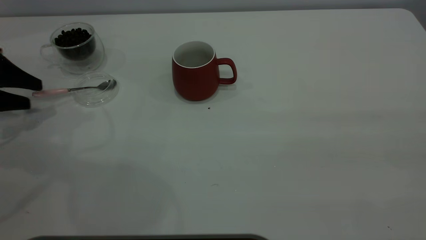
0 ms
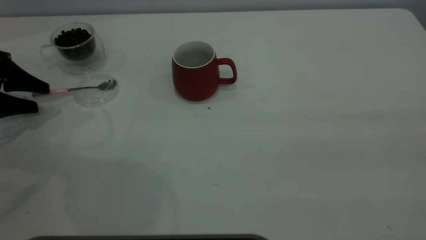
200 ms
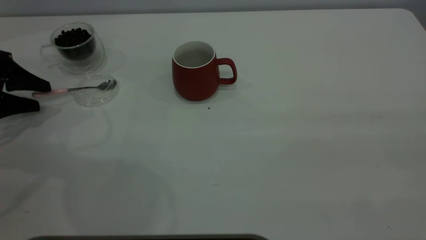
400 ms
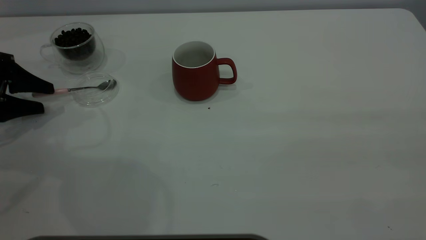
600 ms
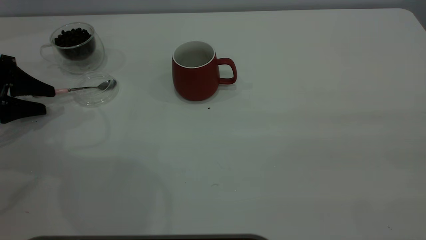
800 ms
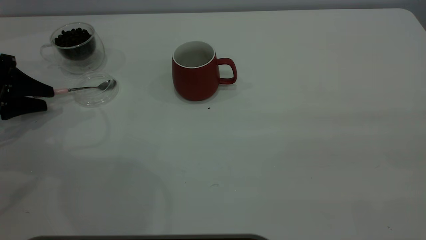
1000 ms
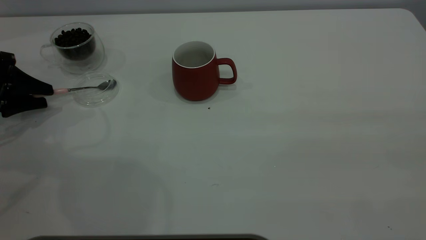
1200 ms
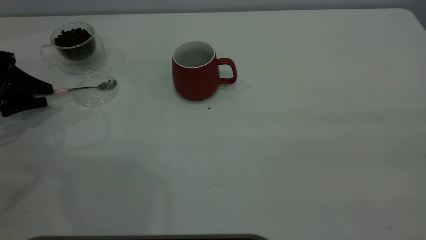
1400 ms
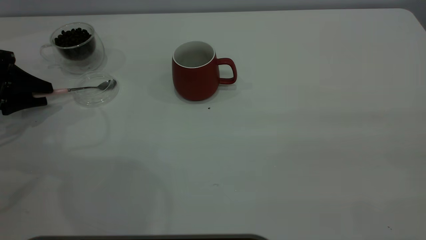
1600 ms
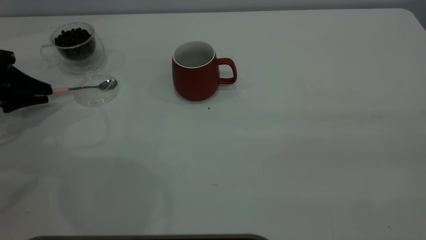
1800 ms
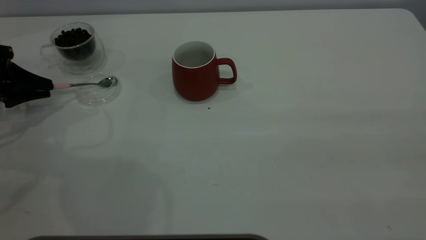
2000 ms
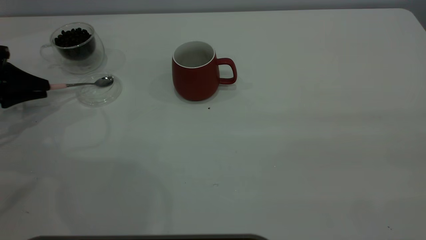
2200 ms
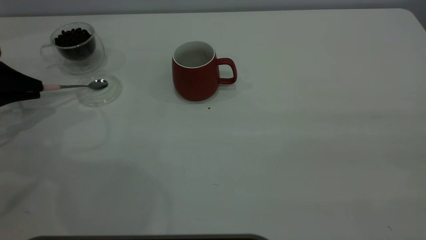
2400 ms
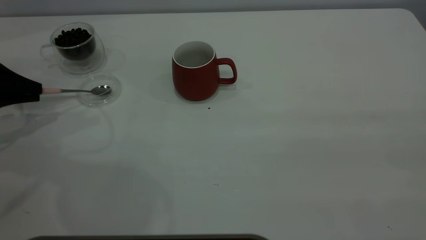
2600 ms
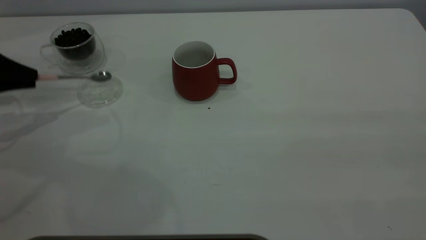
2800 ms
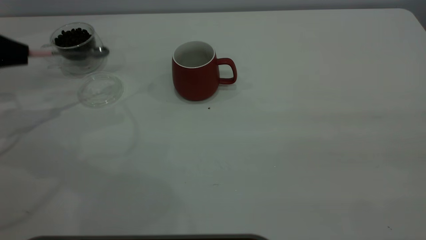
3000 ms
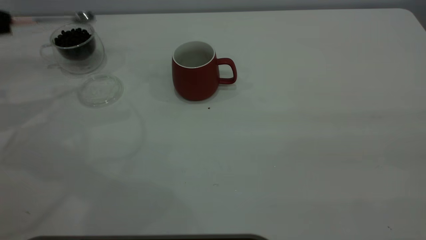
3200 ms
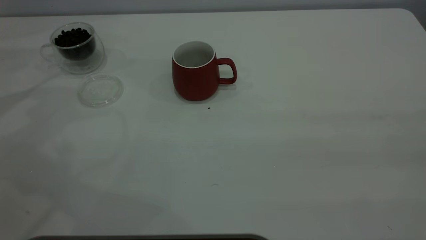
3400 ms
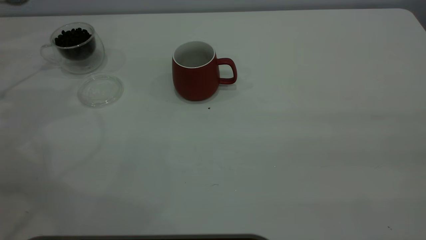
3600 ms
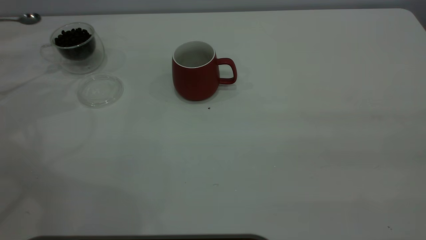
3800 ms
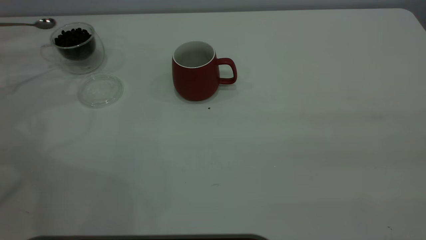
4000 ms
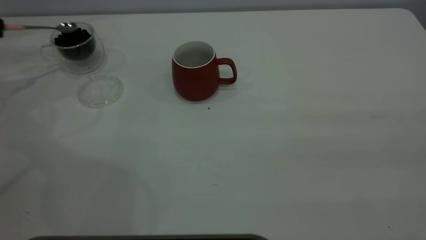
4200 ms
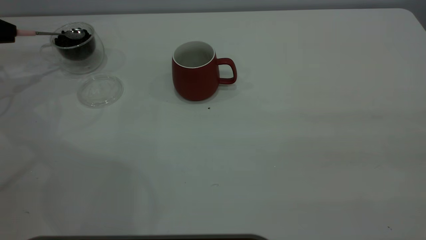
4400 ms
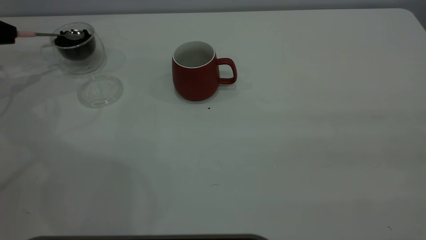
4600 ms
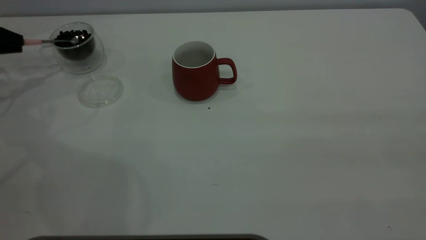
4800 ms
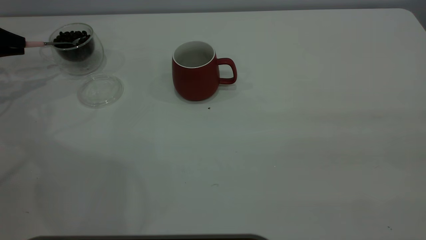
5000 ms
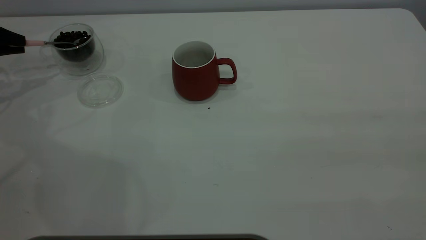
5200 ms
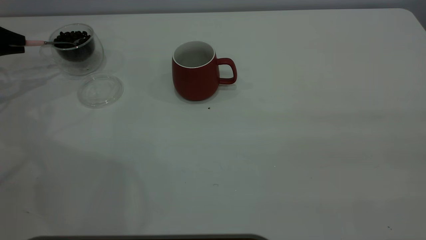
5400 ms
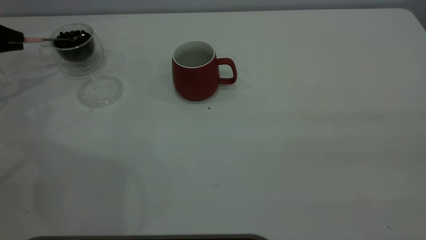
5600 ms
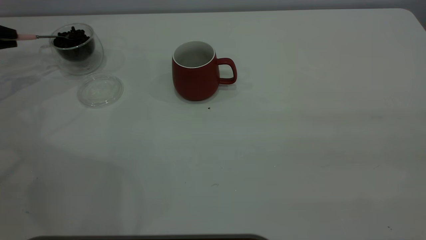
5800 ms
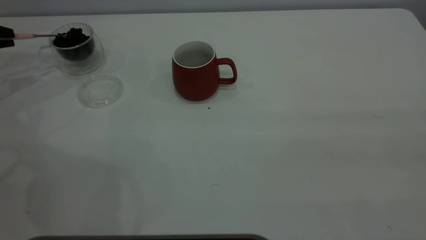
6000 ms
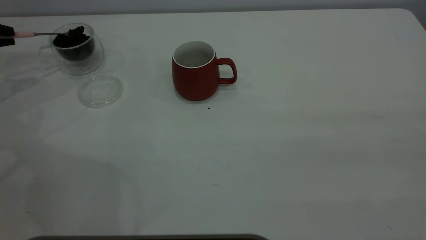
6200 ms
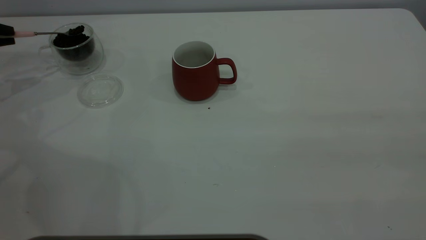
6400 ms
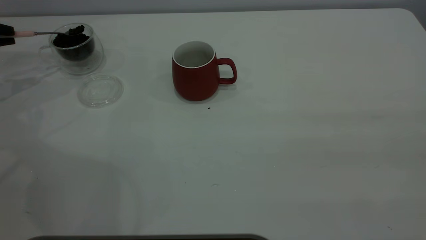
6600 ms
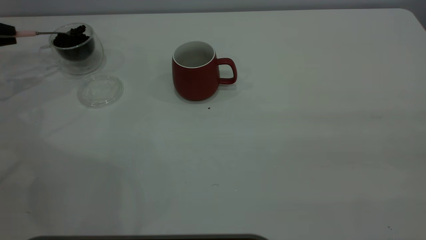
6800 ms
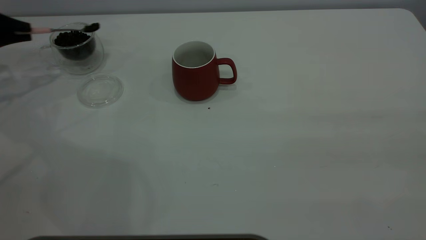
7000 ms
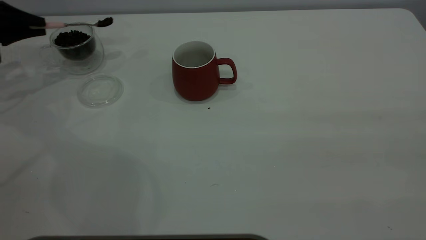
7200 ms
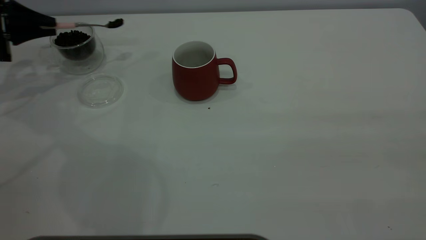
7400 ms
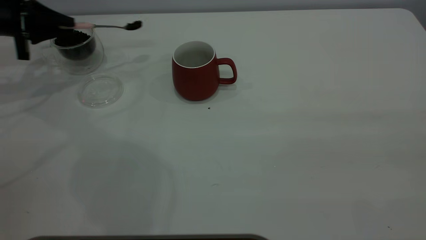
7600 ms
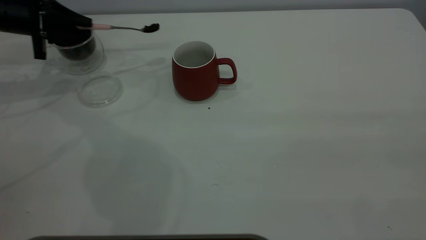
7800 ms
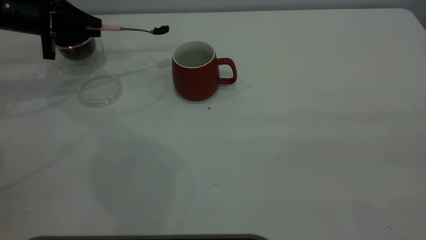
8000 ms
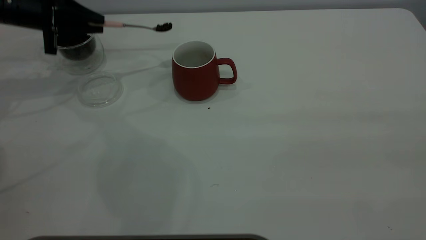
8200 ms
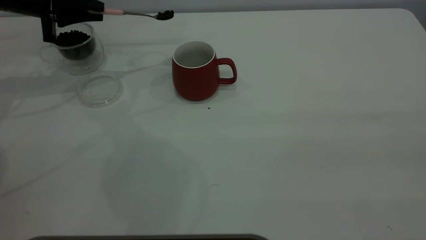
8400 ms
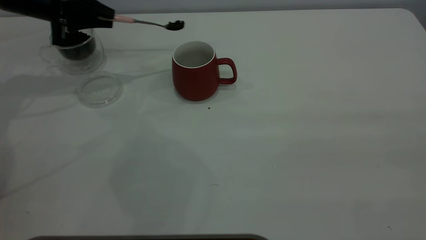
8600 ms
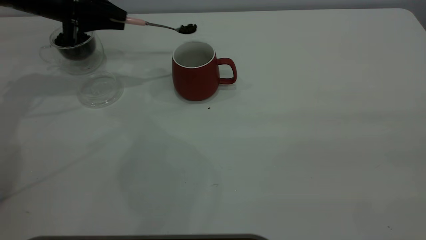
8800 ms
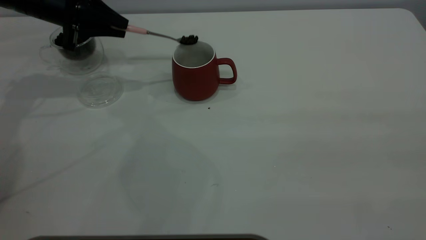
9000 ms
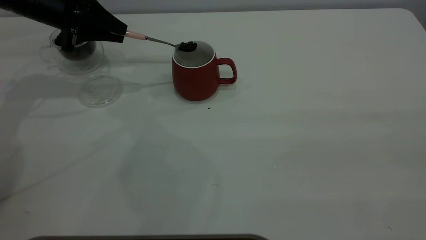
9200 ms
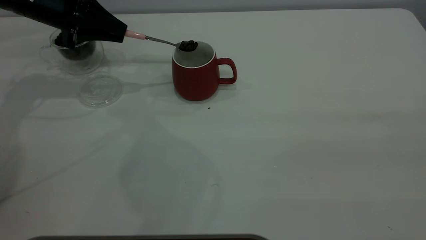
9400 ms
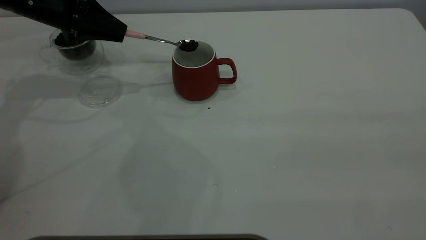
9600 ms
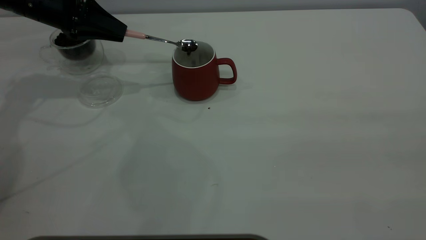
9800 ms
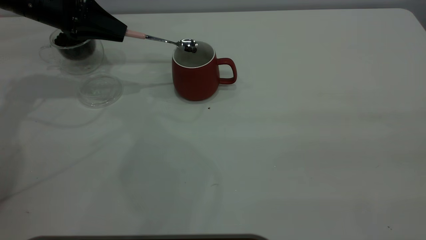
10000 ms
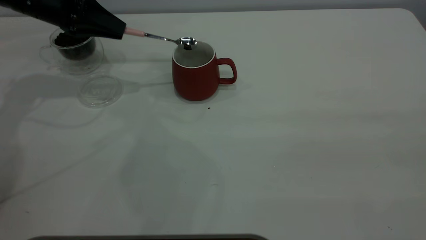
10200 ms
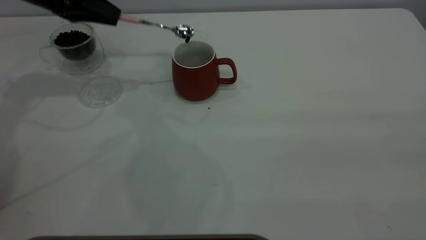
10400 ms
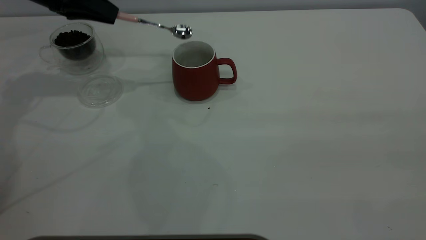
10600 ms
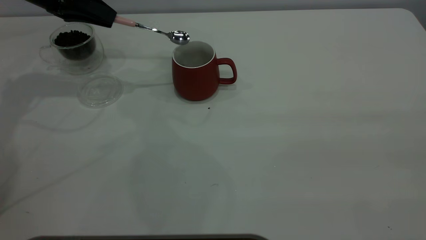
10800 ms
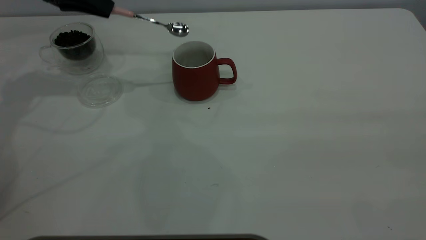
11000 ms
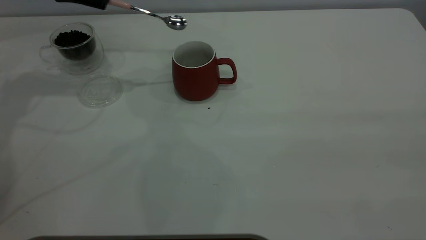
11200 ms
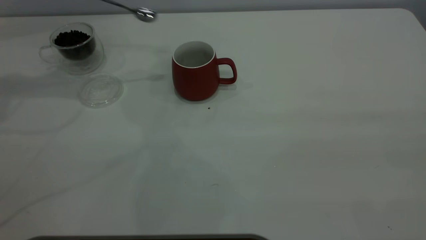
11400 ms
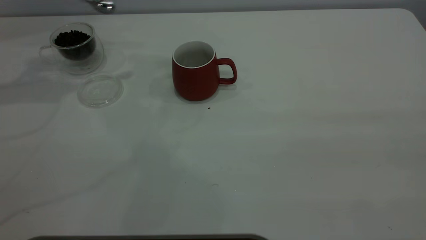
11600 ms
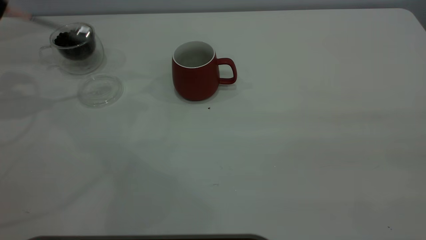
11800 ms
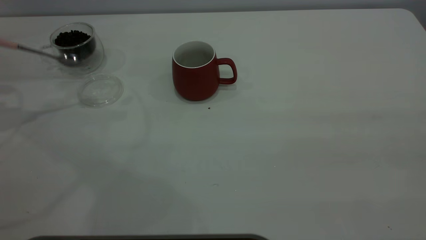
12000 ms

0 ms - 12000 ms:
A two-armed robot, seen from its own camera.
Task of the whole recording: the right gripper place the red cup in the center of the table, the left gripper take the pink spoon from the cup lid and scoop out the coffee beans from the coffee cup and put them into the red cup, the left gripper put the spoon back into the cup lid.
Step, 0 ms - 3000 ms: Pick up the spoon.
Step, 3200 ms - 11200 ms: Scoop a spoonful of beans into the cup.
0 ms - 1600 ms: The left gripper closes its fingers.
1600 ms - 3000 ms: The left gripper moves upward, some 10 cm, and closes its fingers.
3000 ms - 4400 ms: The left gripper goes approximately 10 cm forward and to the left.
6000 ms - 7600 ms: The left gripper heads to the right, covering roughly 10 cm.
7600 ms - 9000 ms: The left gripper moves to the right, approximately 10 cm.
10400 ms - 12000 ms: The left gripper is displaced to the left and backward by about 20 cm.

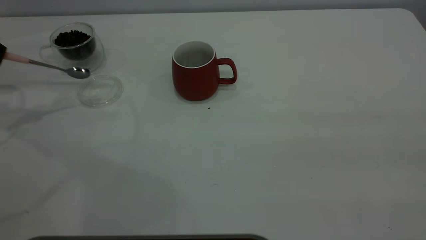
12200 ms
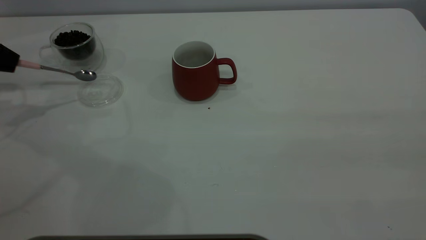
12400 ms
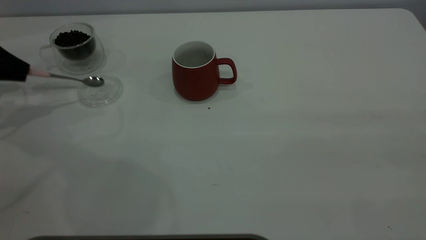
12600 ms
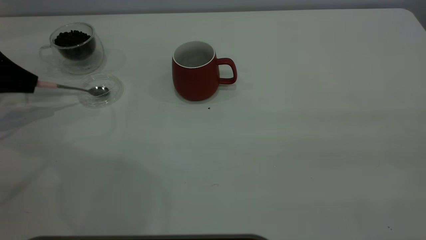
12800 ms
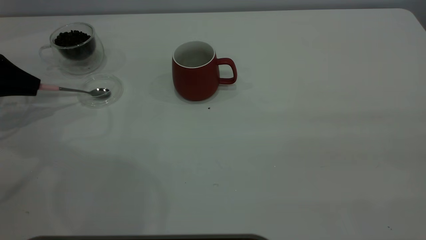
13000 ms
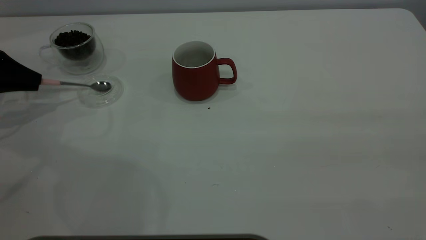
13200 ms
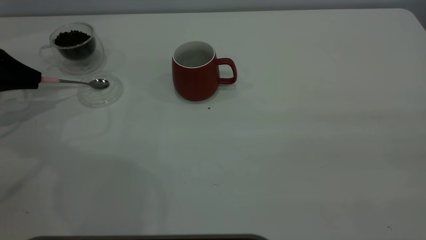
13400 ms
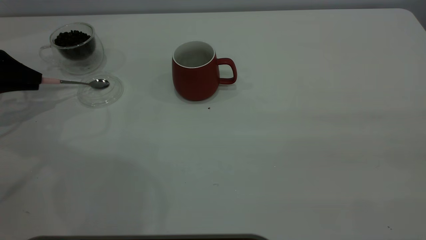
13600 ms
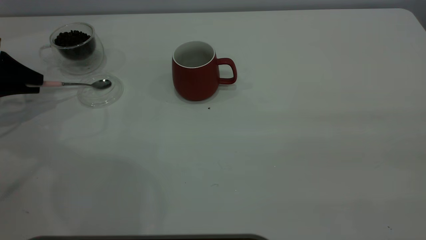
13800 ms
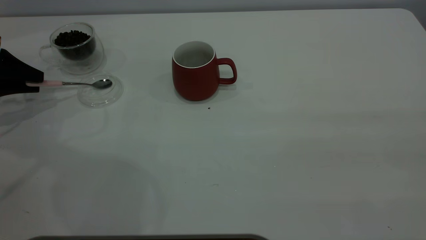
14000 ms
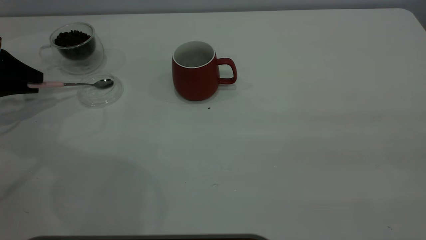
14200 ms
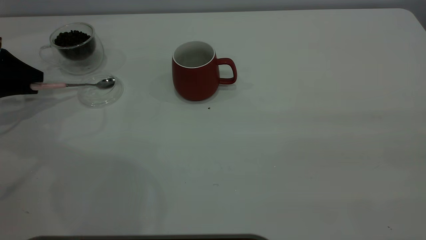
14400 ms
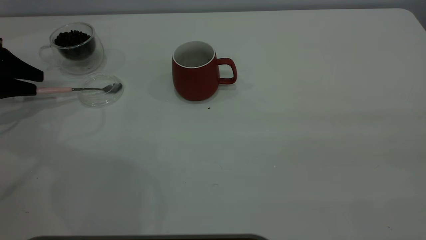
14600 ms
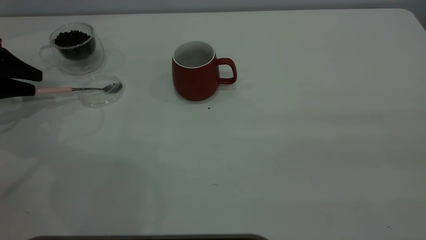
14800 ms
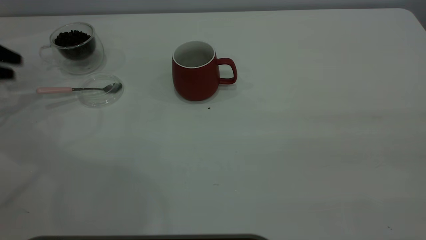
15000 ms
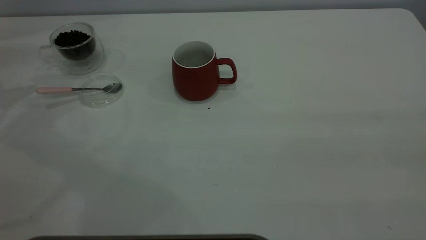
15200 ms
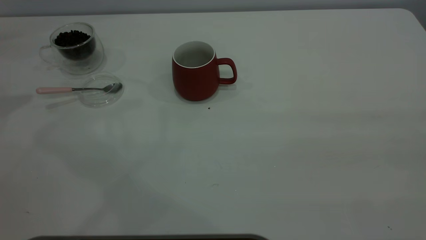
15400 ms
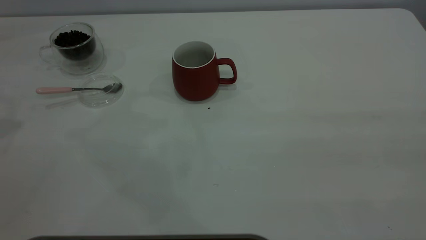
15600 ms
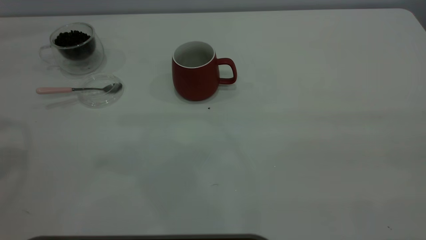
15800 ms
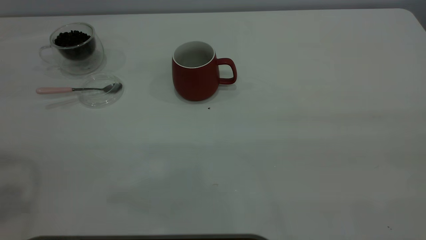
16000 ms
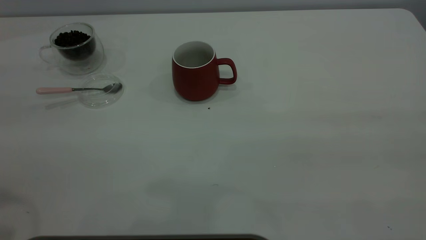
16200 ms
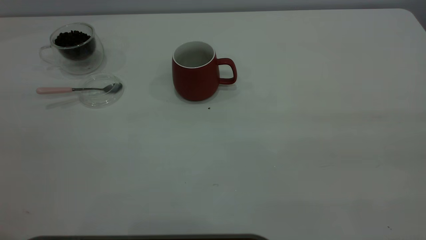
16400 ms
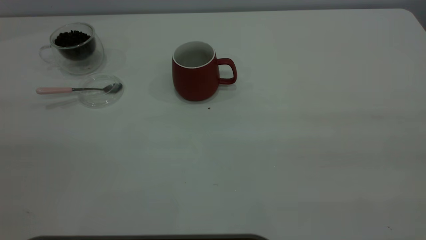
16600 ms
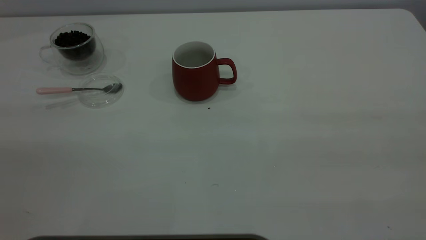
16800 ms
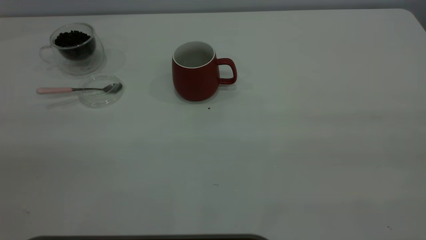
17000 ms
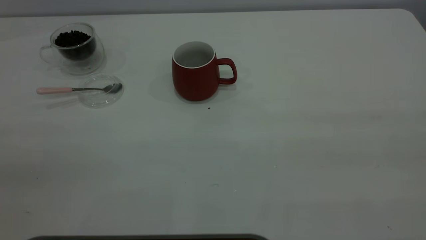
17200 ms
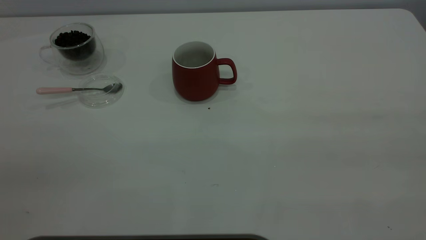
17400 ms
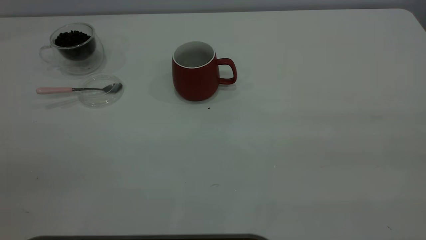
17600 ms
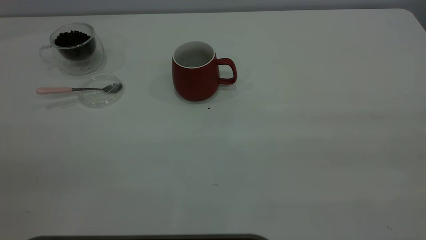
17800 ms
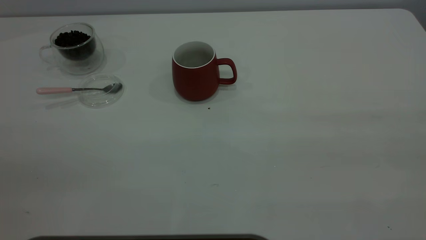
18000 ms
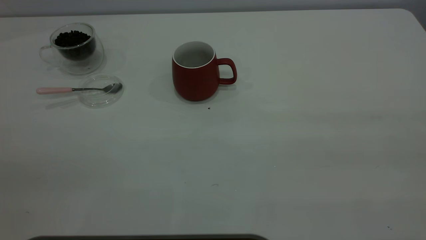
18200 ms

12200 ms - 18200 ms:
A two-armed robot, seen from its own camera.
Task of the whole recording: the right gripper place the red cup in the center of the table, the left gripper take the pink spoon from the cup lid and scoop out the coffee beans from the coffee cup and put them into the red cup, the left gripper put the spoon back into the cup lid.
Step, 12200 ms - 15000 ms: Place the spoon back in its original place.
12200 ms - 13800 ms: The left gripper is displaced downward by about 10 cm.
13800 ms - 15200 ms: The left gripper goes approximately 15 cm upward, and opens up.
